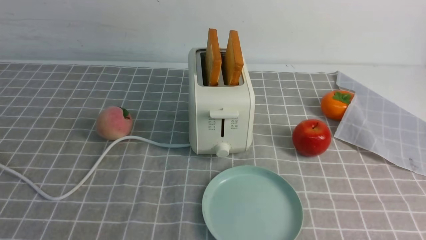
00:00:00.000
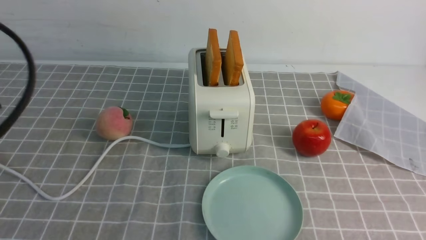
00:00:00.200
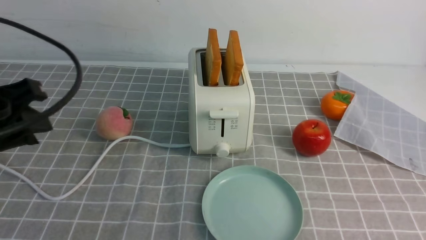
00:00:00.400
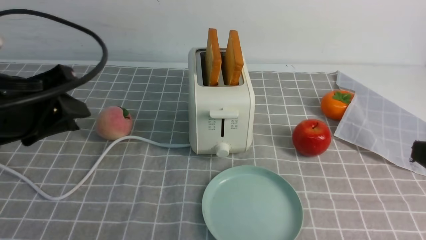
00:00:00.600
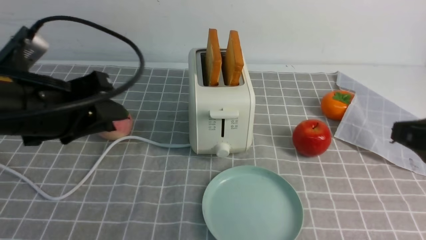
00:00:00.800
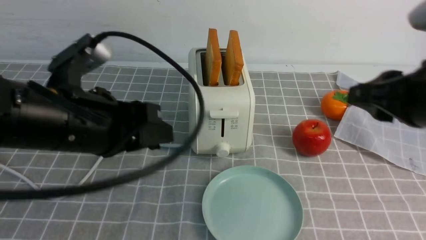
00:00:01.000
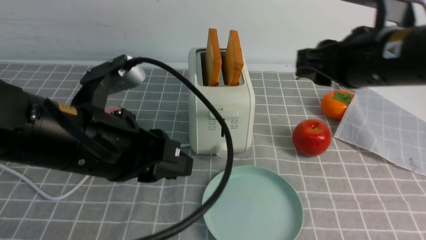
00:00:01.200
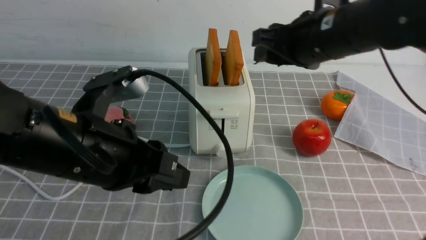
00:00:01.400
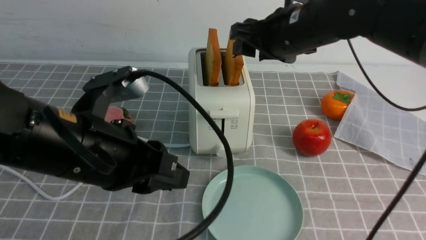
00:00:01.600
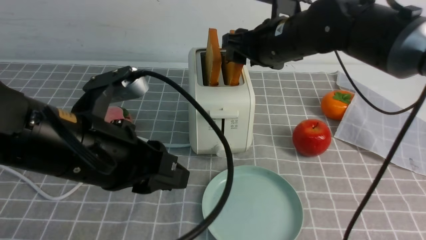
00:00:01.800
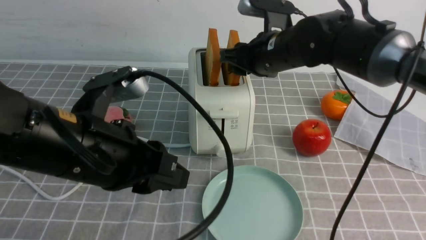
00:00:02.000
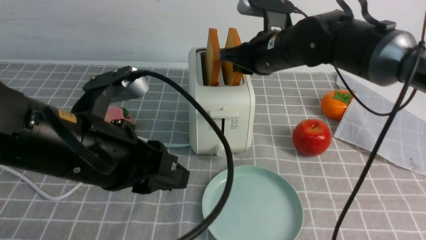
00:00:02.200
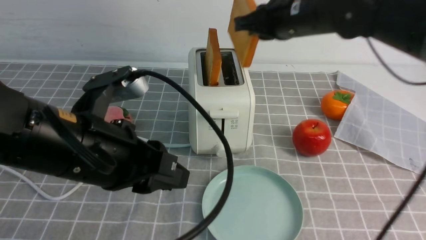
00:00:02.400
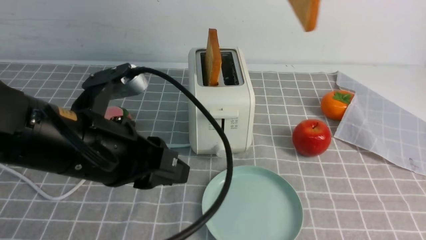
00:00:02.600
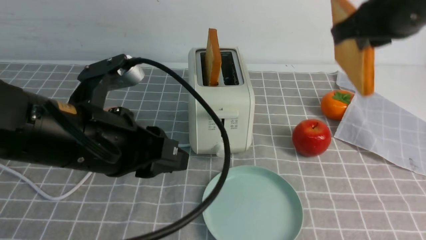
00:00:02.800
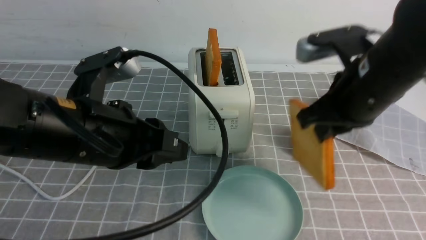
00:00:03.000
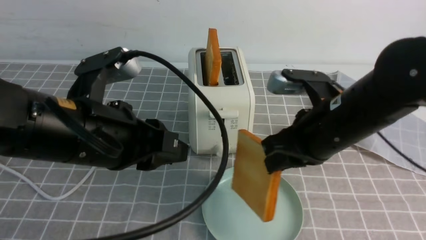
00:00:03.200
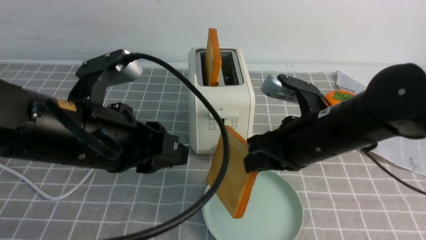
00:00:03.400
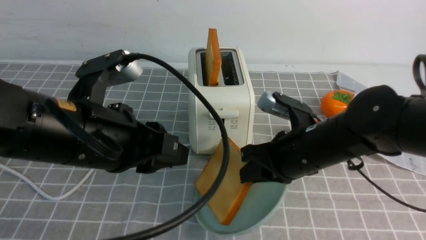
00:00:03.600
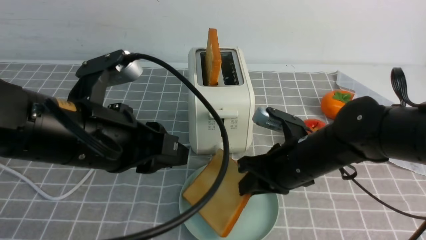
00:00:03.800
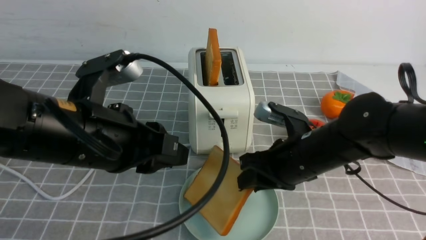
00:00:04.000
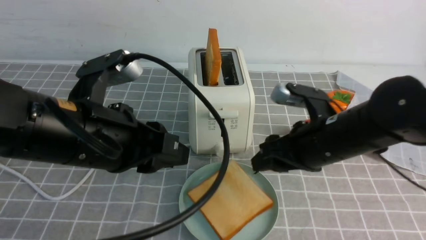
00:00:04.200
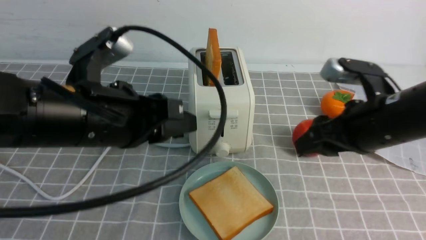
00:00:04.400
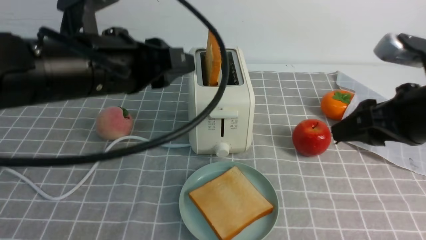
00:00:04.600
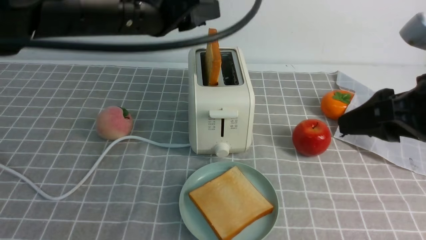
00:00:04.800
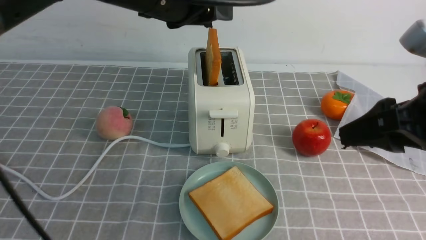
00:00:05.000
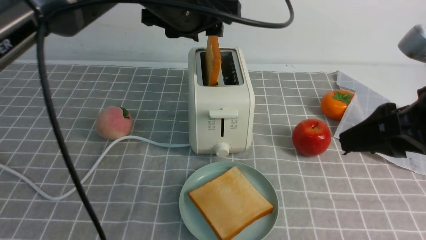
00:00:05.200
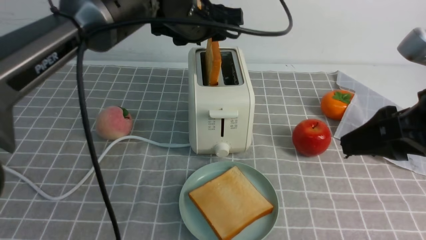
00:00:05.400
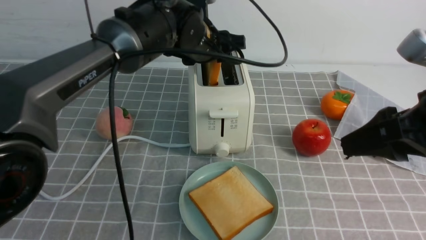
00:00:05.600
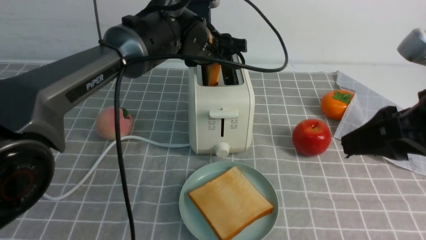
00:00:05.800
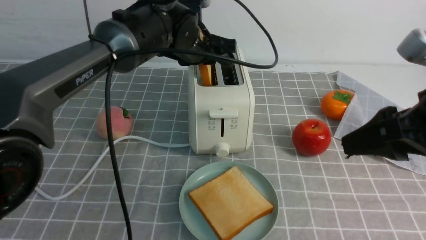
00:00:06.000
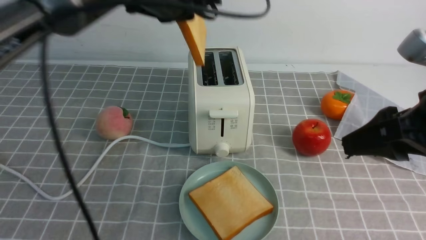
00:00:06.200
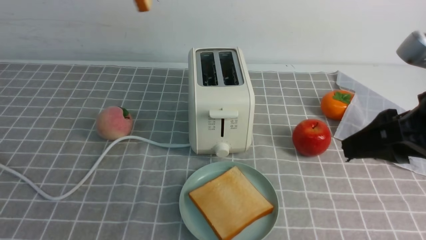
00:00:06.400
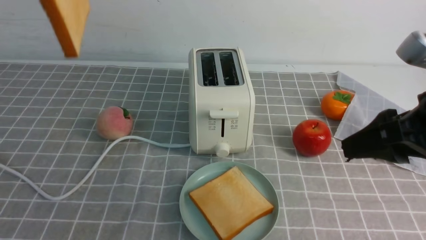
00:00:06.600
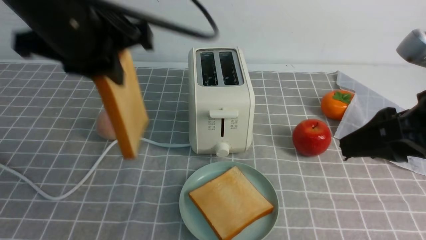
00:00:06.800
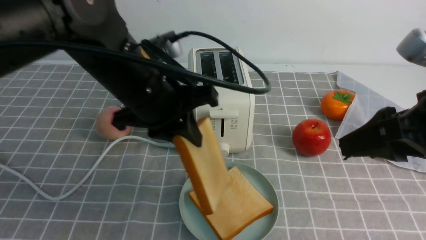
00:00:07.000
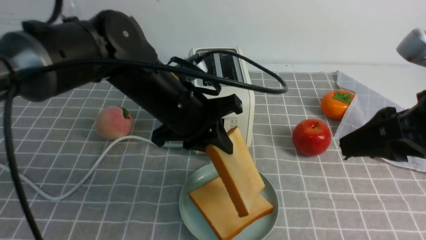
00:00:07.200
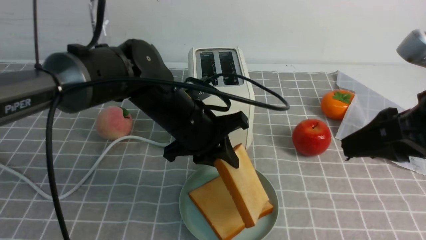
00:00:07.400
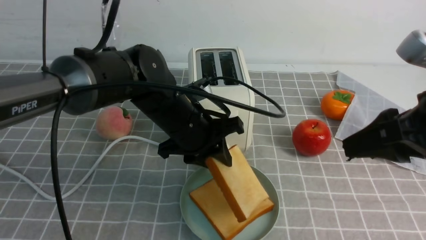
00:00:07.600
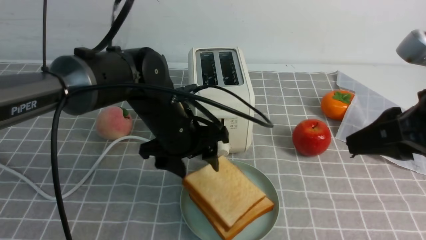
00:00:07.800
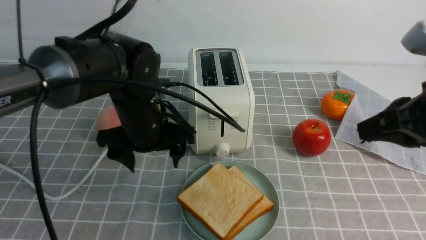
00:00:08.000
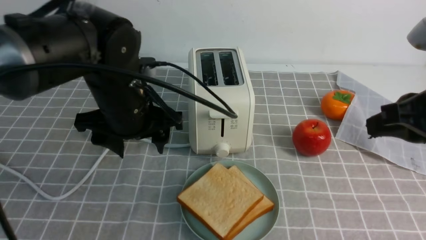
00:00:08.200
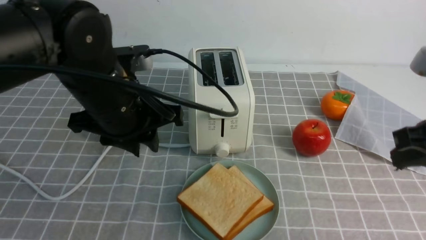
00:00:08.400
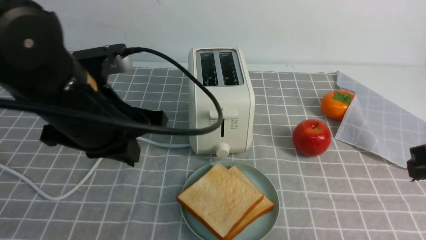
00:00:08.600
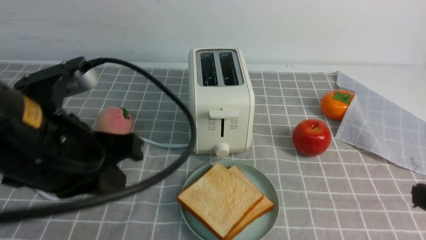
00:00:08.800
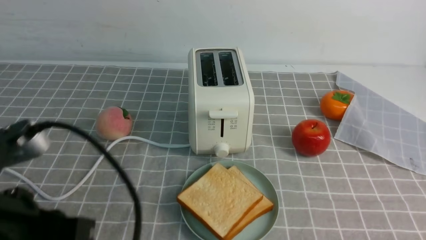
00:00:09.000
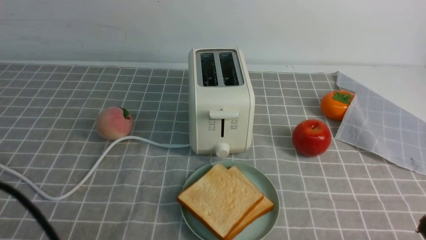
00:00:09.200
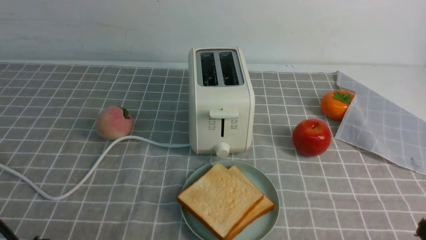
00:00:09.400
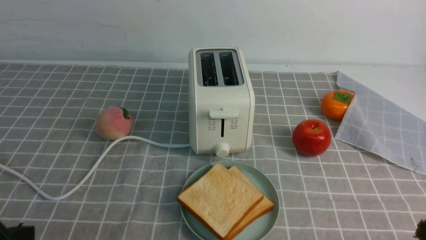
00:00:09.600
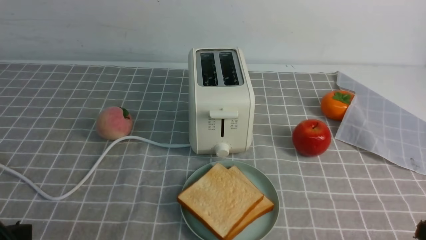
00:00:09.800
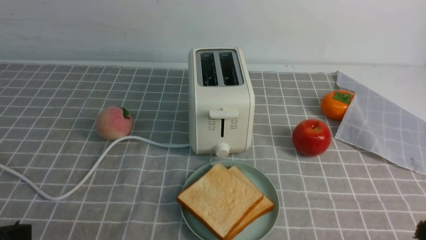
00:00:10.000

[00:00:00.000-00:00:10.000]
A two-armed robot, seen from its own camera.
Task of the whole recording: take toasted bread from bread machine on grey coffee table place on plate.
Step, 00:00:00.000 to 00:00:02.200: use the right arm to take out a slice of bread.
Step, 00:00:02.400 to 00:00:04.200: use the right arm to put a slice of bread into the plate.
Step, 00:00:04.400 to 00:00:06.200: use the left arm to take out a slice of bread.
Step, 00:00:06.600 to 00:00:08.000: use the left arm to put a slice of bread into the empty plate.
00:00:00.000 to 00:00:01.400: The right gripper goes roughly 30 cm forward and to the left. Meanwhile the left gripper travels to the right, downward and forward by about 15 cm.
00:00:01.400 to 00:00:02.800: The right gripper moves some 5 cm forward and comes back, and closes.
00:00:02.800 to 00:00:04.200: The right gripper is displaced downward by approximately 15 cm, and opens.
00:00:04.200 to 00:00:05.800: The left gripper heads forward and to the right, covering roughly 25 cm. Meanwhile the right gripper shifts some 15 cm upward, backward and to the right.
00:00:05.800 to 00:00:07.200: The left gripper goes roughly 15 cm backward, reaches about 15 cm upward, then returns, and closes.
00:00:07.200 to 00:00:08.600: The left gripper moves backward, to the left and upward, approximately 15 cm, and opens, then closes again. The right gripper shifts by roughly 5 cm, and closes its fingers.
00:00:08.600 to 00:00:10.000: The right gripper goes roughly 15 cm downward and backward, while the left gripper shifts roughly 20 cm backward and to the left.
